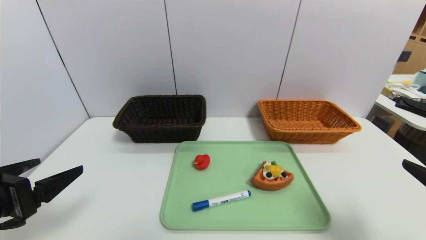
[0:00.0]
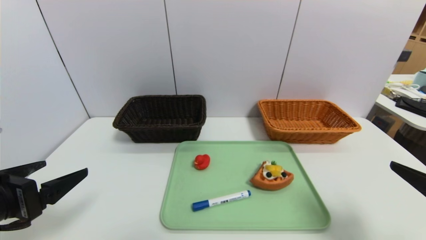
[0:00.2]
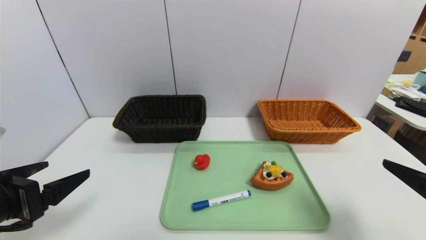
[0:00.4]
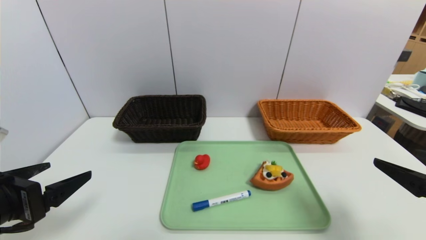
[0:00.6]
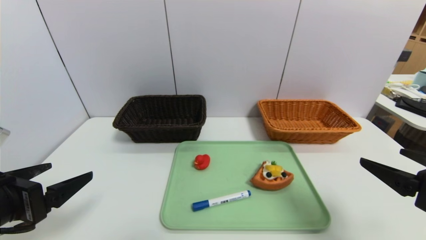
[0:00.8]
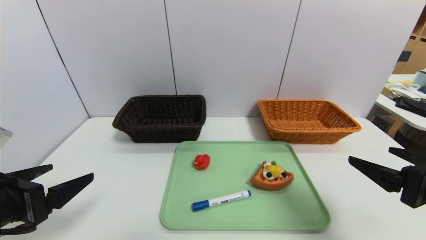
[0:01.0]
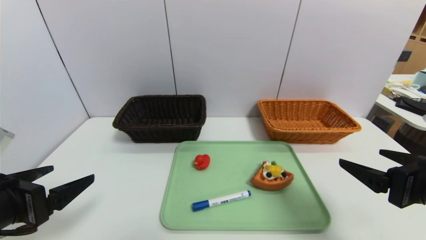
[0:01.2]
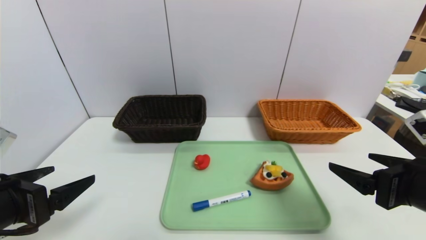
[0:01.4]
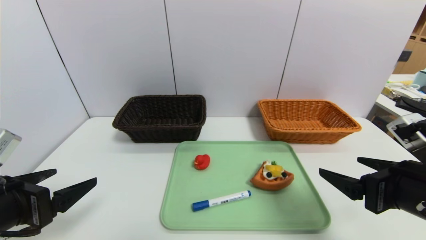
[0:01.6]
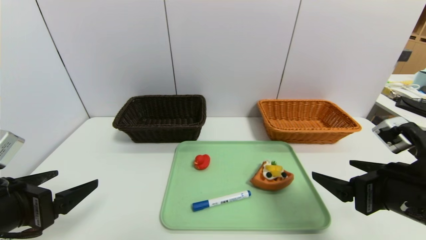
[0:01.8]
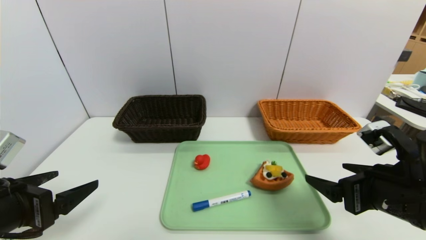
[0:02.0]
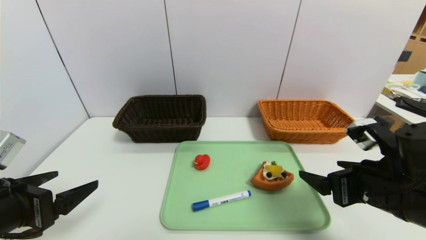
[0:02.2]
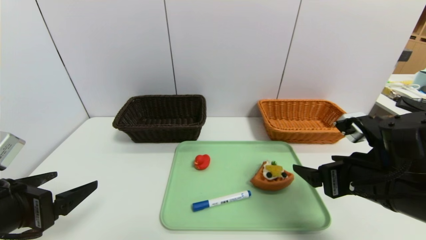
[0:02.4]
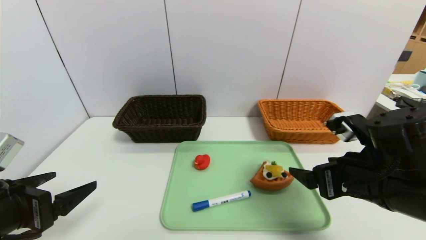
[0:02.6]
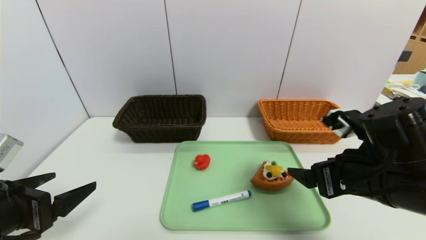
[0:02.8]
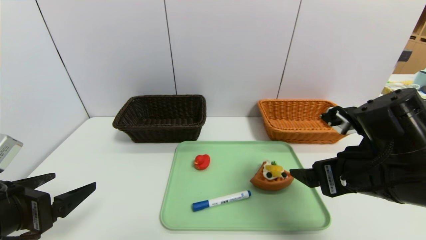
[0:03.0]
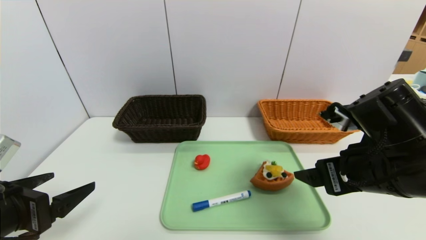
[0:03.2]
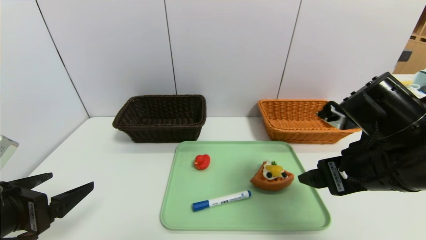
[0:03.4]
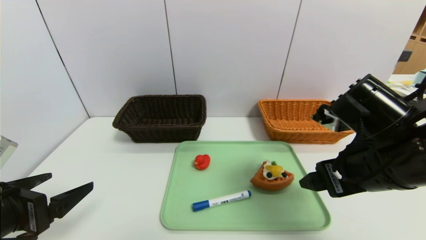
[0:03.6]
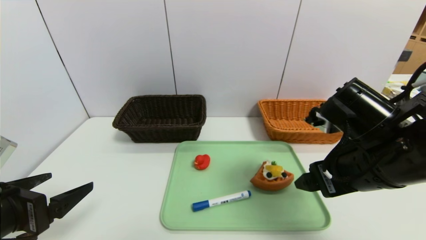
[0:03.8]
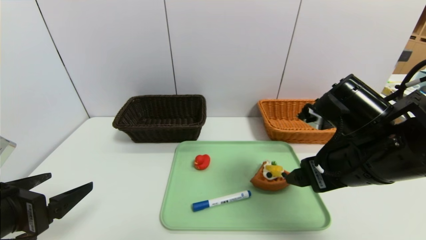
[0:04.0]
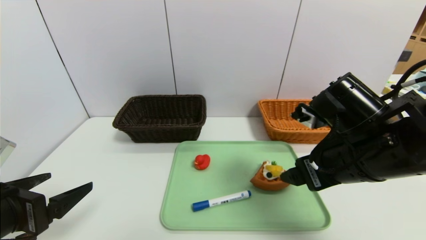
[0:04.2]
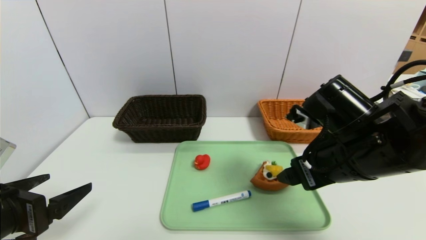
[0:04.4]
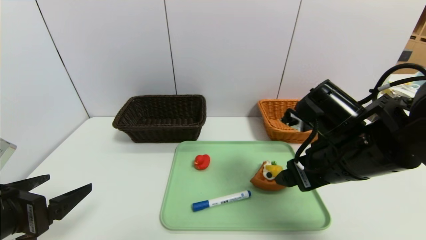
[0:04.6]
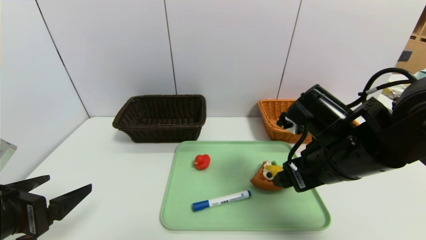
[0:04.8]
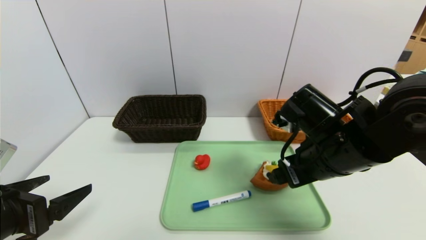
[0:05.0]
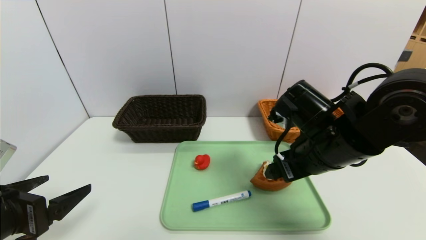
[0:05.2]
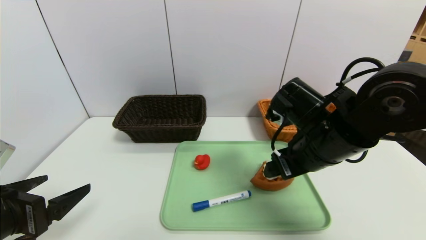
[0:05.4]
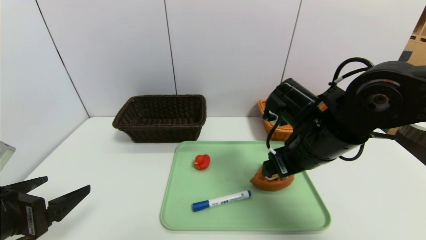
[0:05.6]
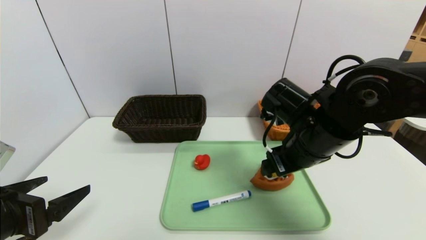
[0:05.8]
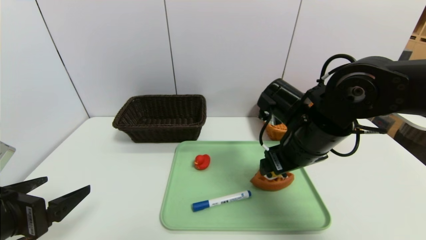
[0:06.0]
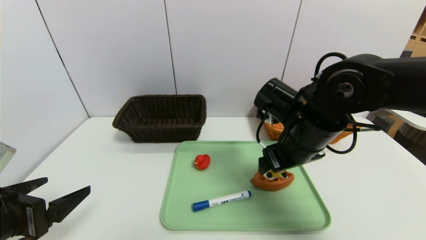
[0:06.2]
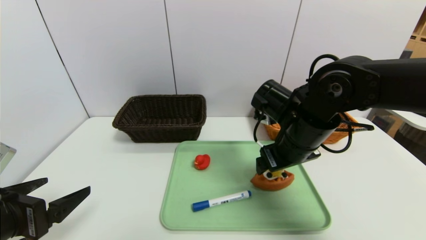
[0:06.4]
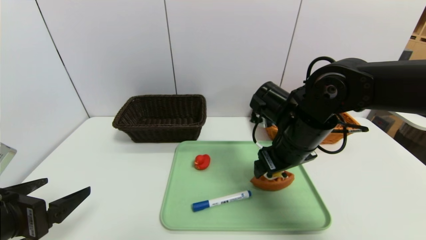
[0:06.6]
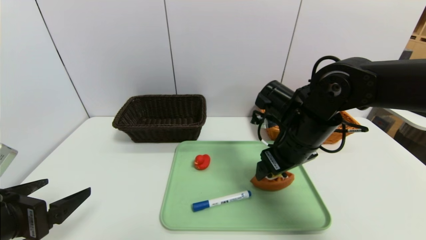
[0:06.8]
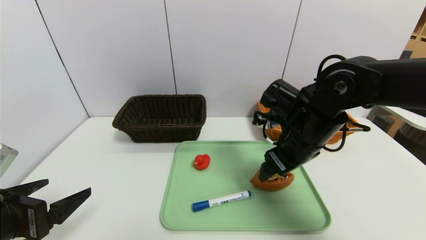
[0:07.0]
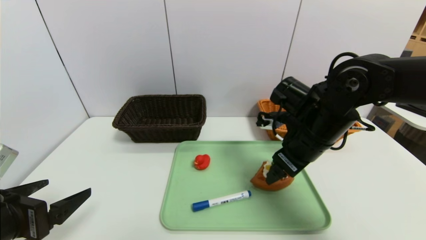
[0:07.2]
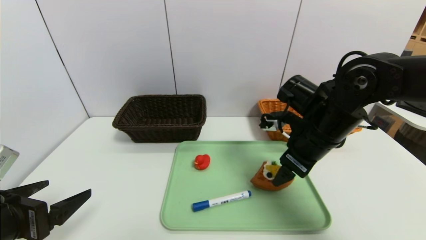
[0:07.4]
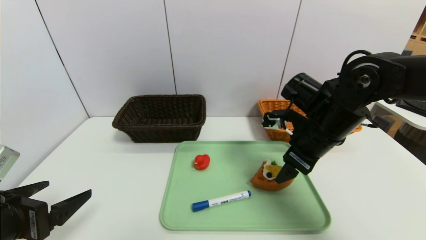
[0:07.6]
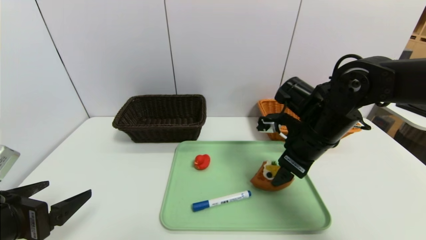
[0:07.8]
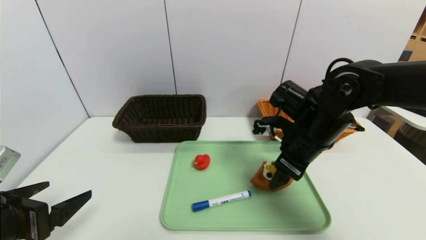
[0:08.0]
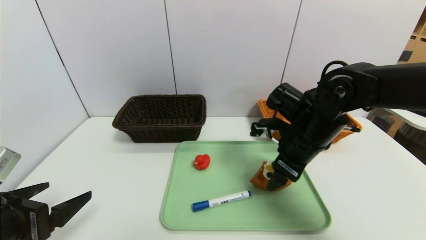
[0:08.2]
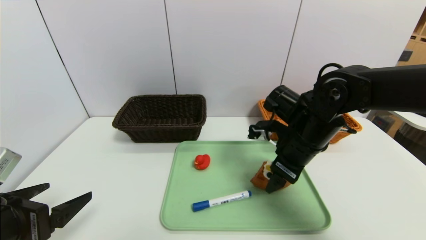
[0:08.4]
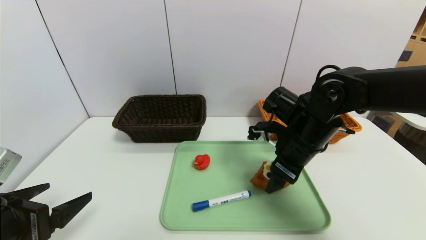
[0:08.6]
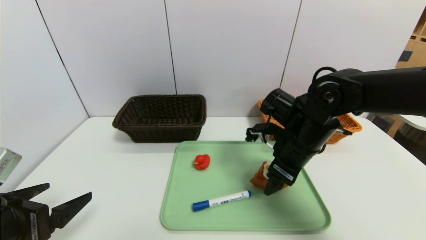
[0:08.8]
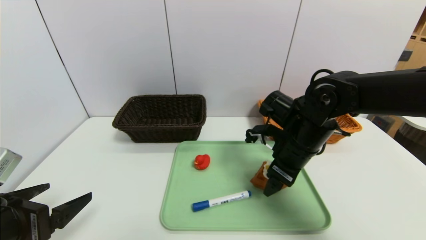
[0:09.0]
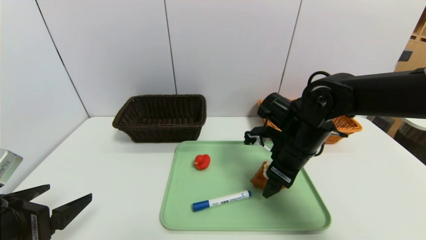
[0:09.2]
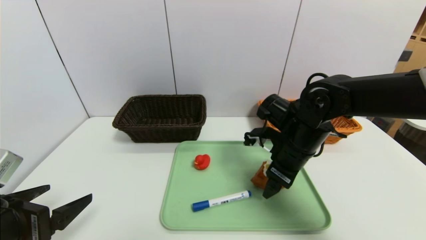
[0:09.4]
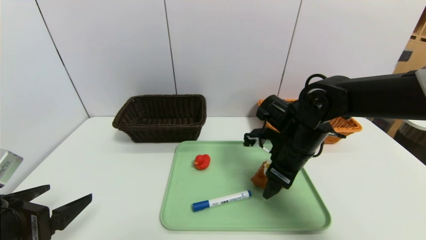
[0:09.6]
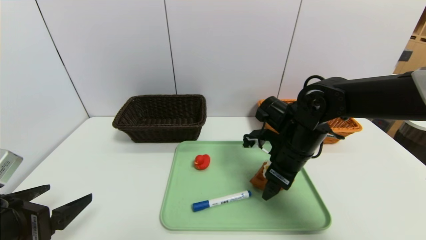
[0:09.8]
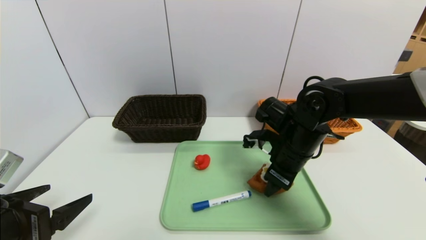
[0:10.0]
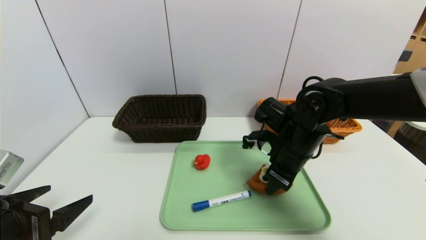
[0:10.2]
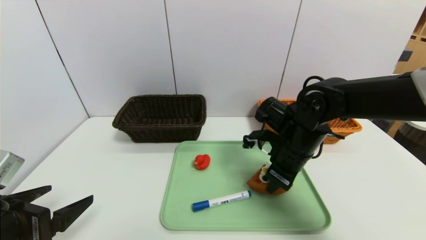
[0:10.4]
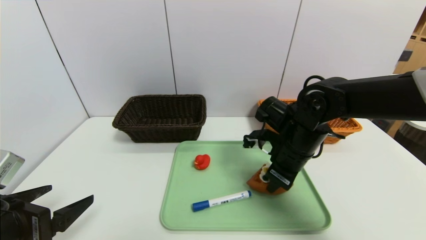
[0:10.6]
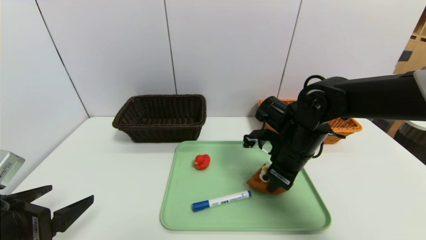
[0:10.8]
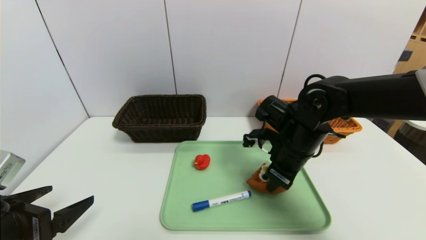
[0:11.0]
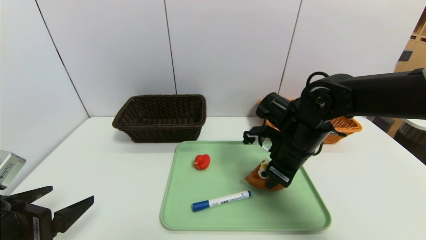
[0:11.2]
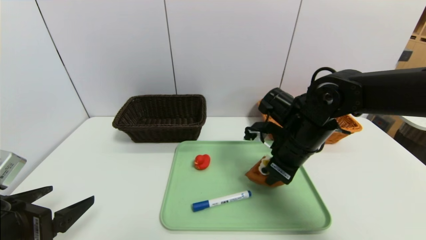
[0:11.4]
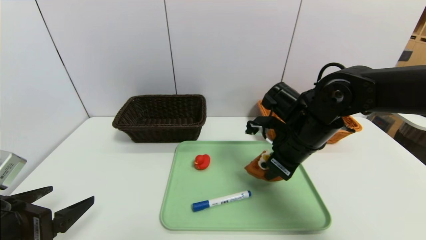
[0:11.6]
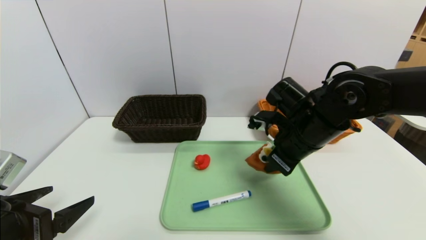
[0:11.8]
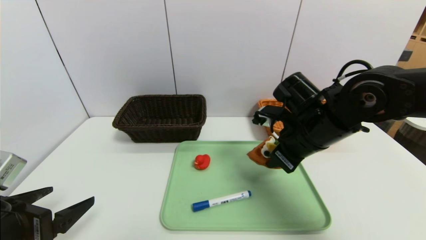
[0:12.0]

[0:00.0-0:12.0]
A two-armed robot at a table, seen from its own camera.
Task of the whole recording: place the food in the right basket with the right gripper, and place the non food items in the left basket with the left gripper.
0:00.0 to 0:01.6: The right gripper heads to the left and forward, covering about 10 cm.
0:01.6 to 0:03.0: The right gripper is displaced to the left by about 5 cm.
0:03.0 to 0:04.4: The grippers move only a little.
0:04.4 to 0:06.0: The right gripper heads forward, covering roughly 5 cm.
0:06.0 to 0:07.6: The right gripper moves some 5 cm.
0:07.6 to 0:09.0: The grippers move only a little.
0:09.0 to 0:10.4: The right gripper closes its fingers.
0:10.4 to 0:12.0: The right gripper changes place by about 5 cm.

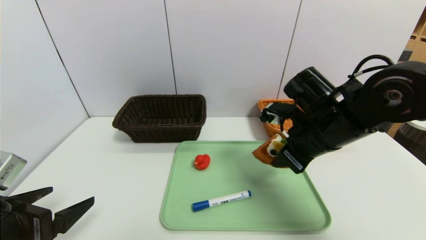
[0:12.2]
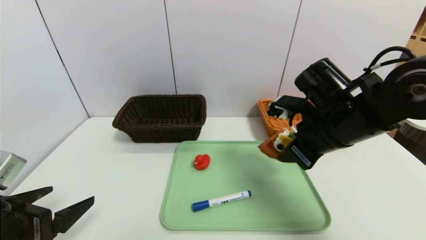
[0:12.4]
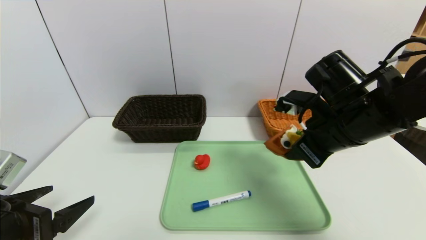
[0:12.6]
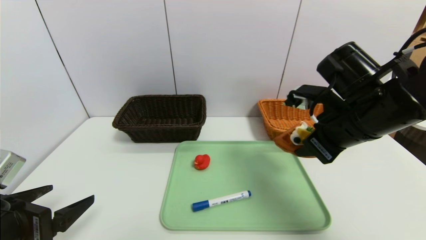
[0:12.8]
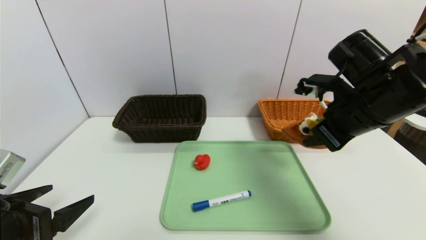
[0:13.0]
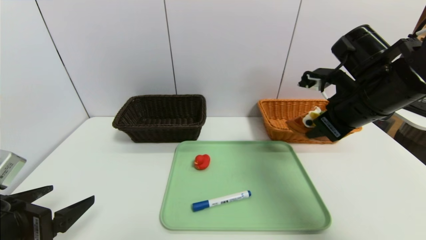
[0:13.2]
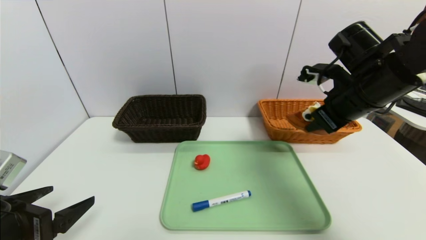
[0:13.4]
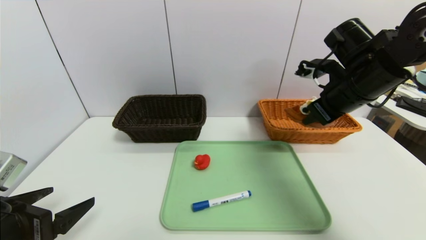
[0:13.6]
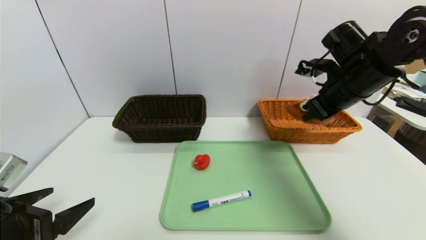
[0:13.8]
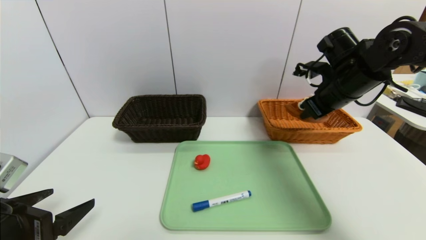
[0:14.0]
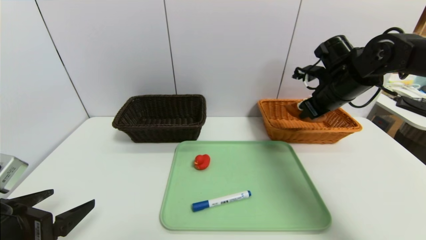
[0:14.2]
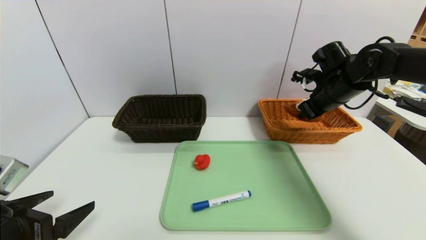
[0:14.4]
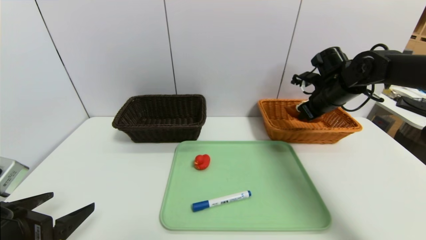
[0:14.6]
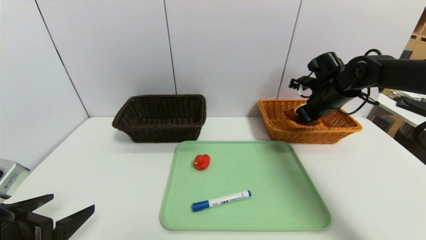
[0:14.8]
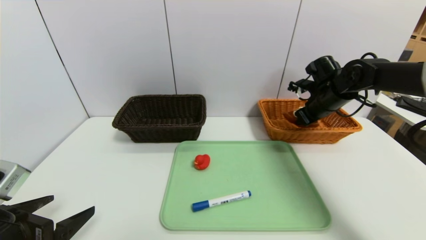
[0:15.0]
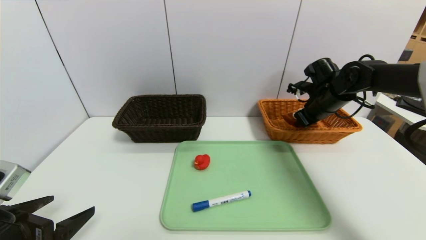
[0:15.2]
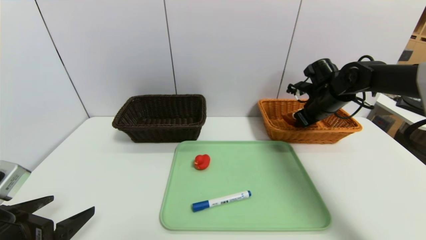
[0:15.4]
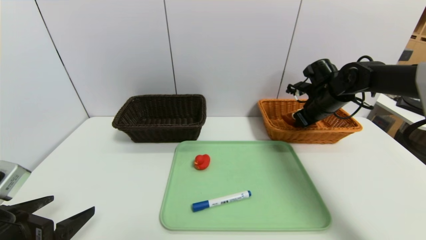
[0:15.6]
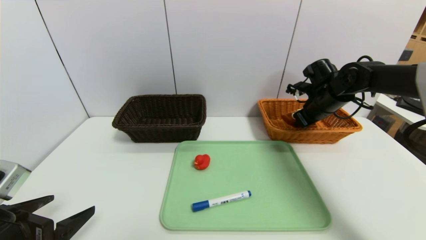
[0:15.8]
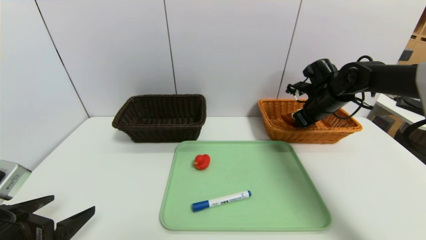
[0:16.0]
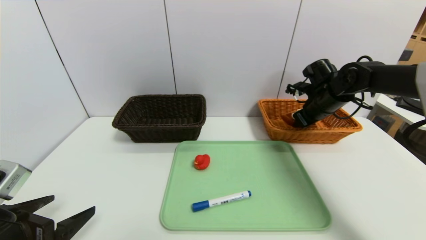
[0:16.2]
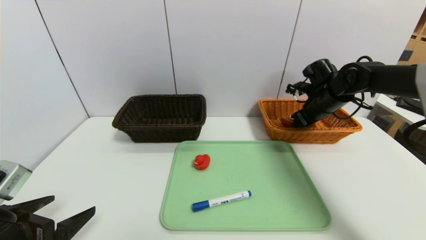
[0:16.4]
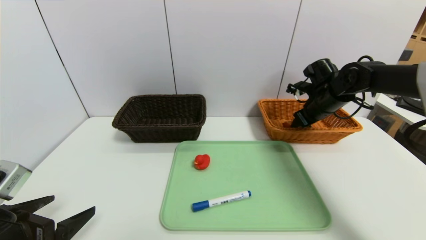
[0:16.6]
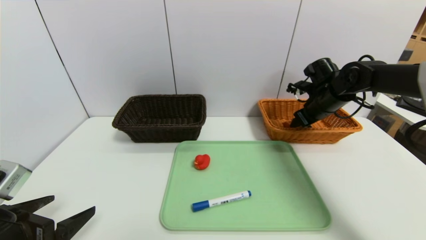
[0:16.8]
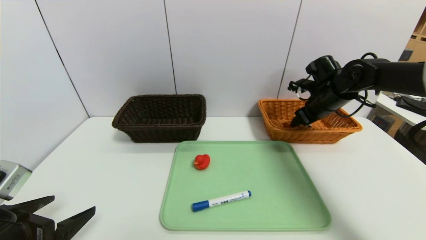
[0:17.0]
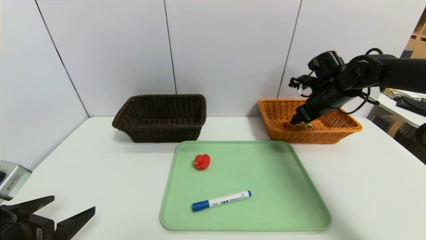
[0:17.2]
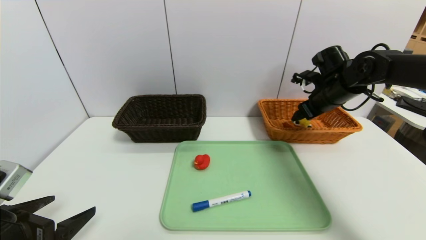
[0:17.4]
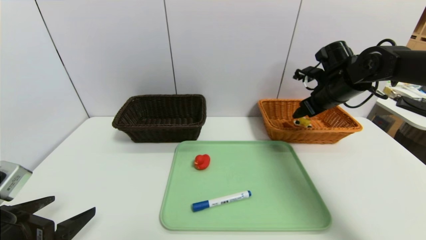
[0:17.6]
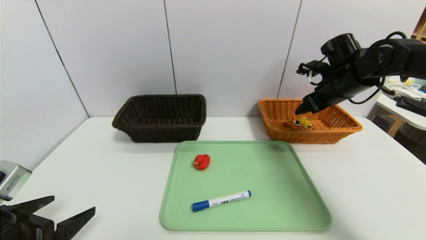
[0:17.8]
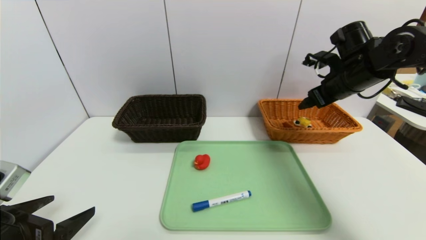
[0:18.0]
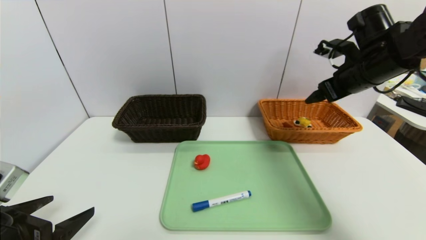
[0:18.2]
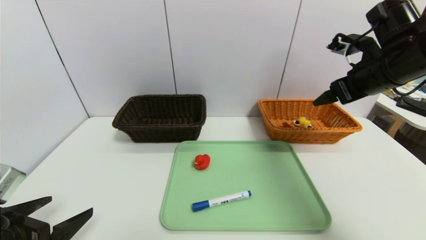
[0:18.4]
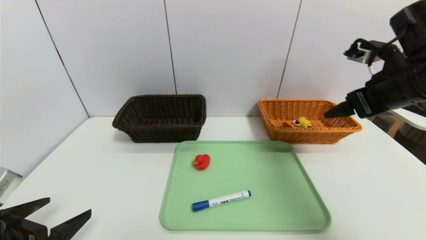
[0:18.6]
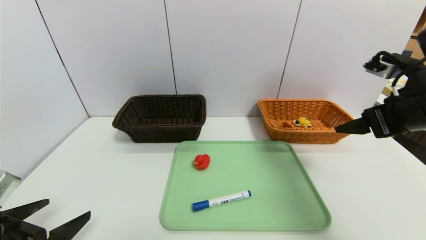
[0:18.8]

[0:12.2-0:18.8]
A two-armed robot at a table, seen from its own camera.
Task of the whole recording: place the food in the right basket with the right gripper, and place the non food items in the left basket with the left gripper.
Step, 0:12.2 to 0:17.2: Grasp the triangle cake and put it in the right basket.
0:12.2 to 0:13.8: The right gripper shifts roughly 10 cm to the right, forward and upward.
0:13.8 to 0:15.4: The right gripper shifts about 10 cm forward and downward.
0:15.4 to 0:17.2: The right gripper opens its fingers.
0:17.2 to 0:18.8: The right gripper heads backward, covering about 20 cm.
